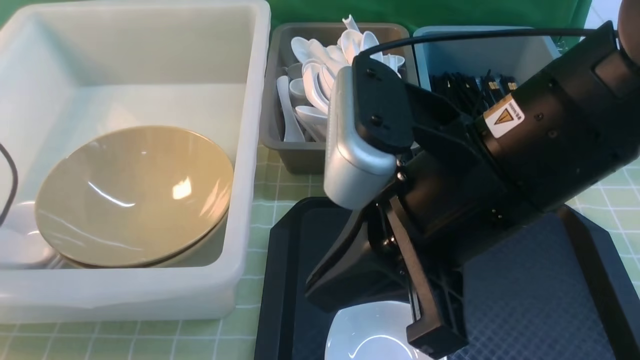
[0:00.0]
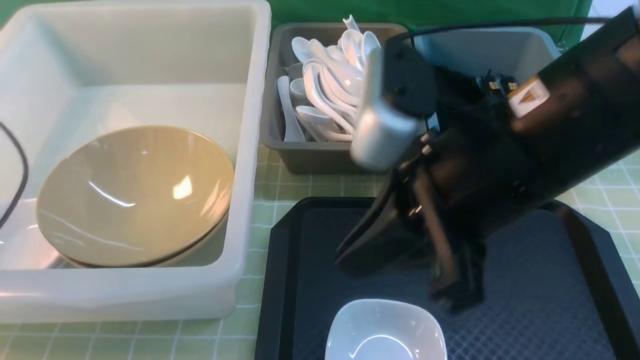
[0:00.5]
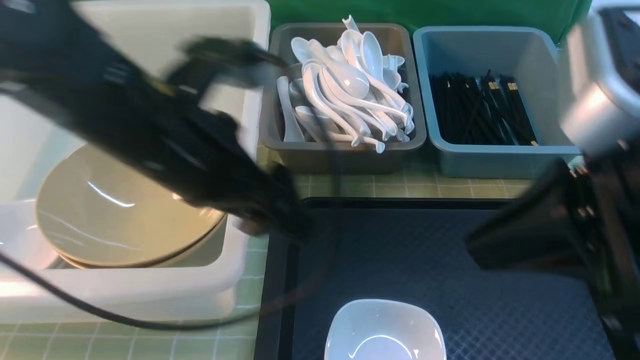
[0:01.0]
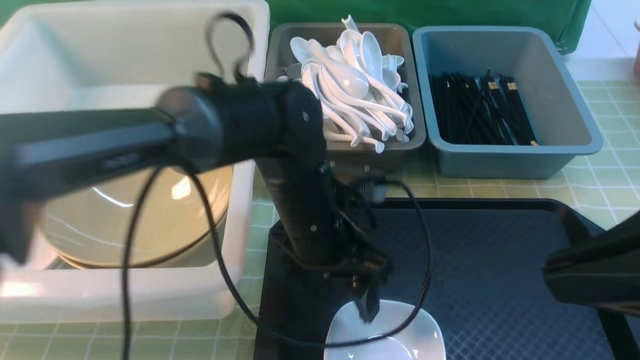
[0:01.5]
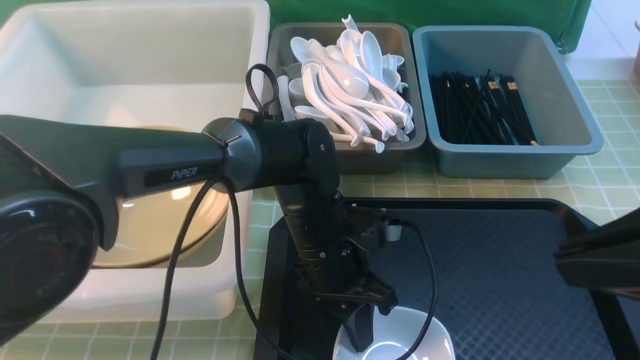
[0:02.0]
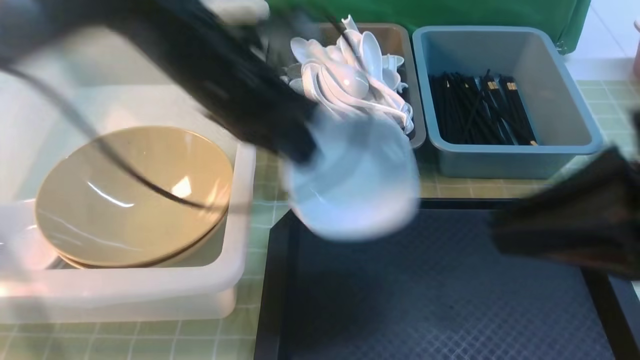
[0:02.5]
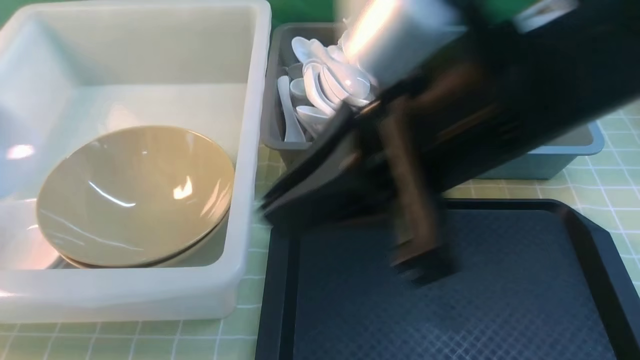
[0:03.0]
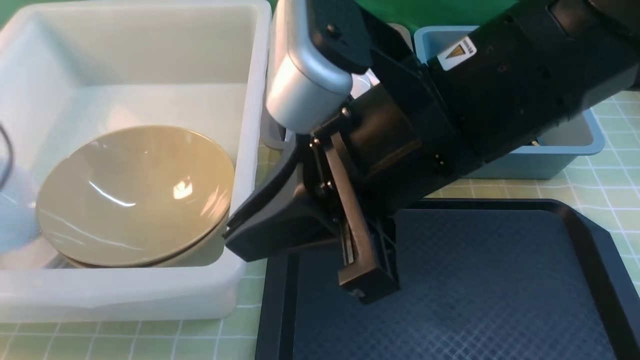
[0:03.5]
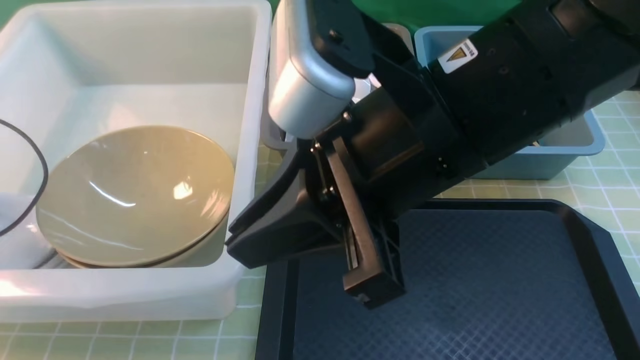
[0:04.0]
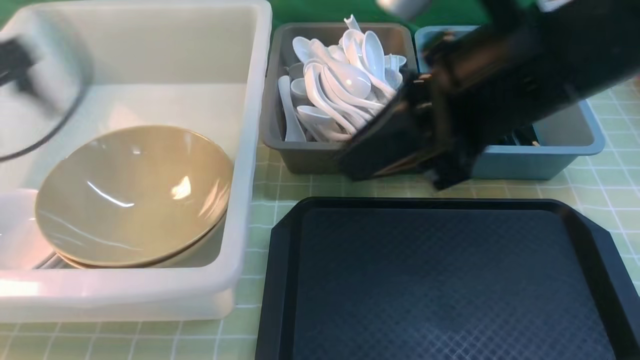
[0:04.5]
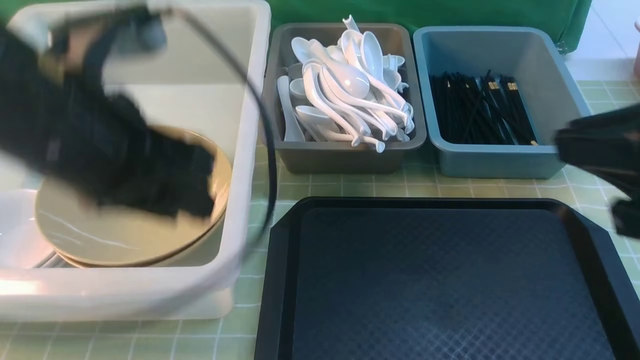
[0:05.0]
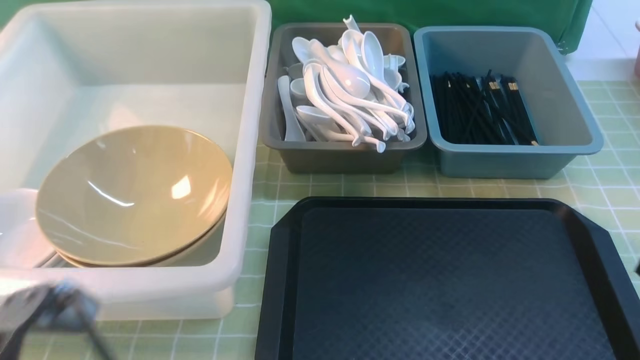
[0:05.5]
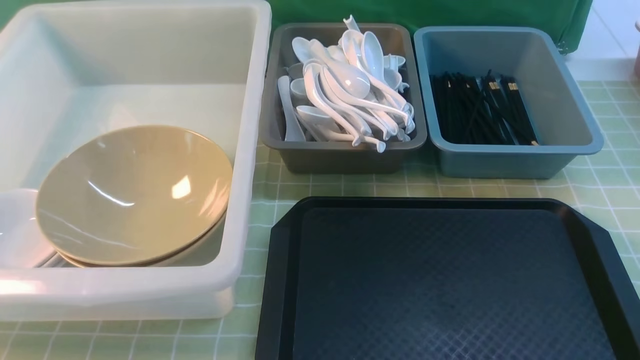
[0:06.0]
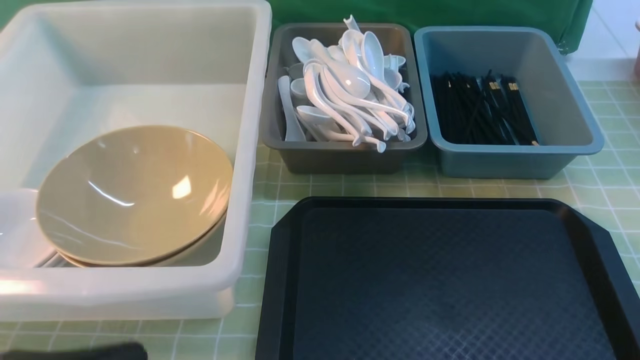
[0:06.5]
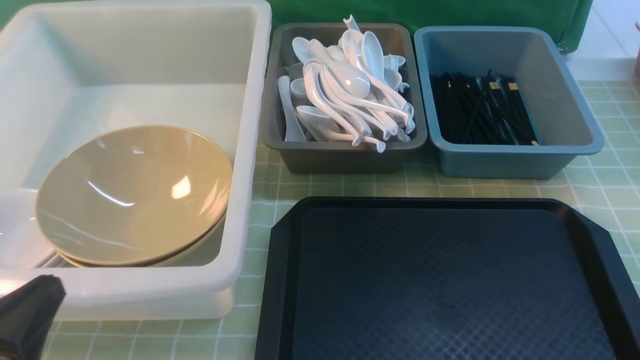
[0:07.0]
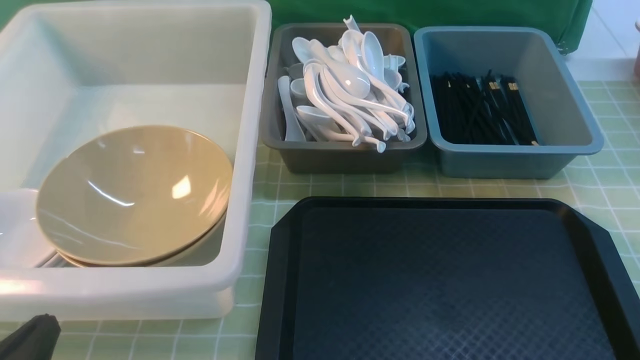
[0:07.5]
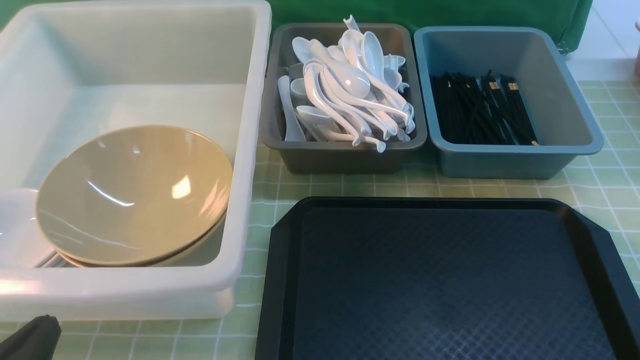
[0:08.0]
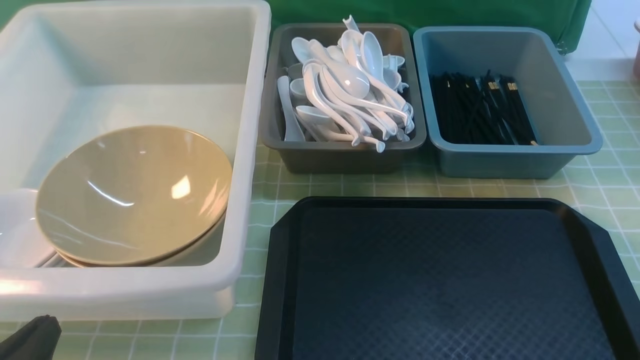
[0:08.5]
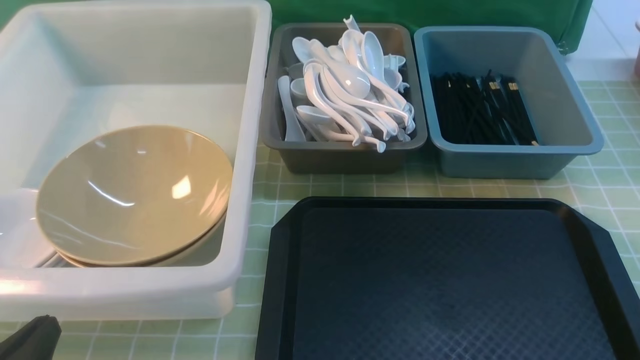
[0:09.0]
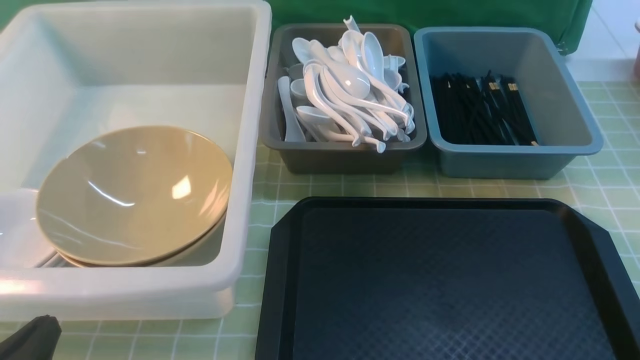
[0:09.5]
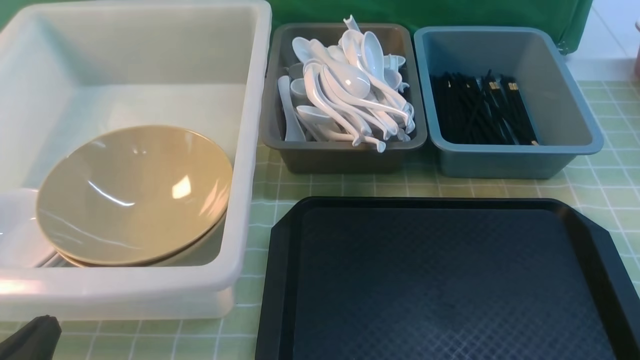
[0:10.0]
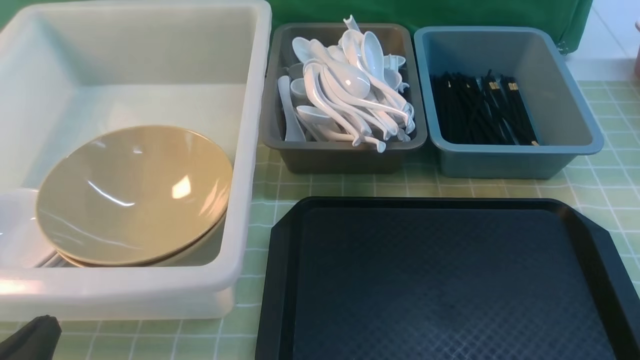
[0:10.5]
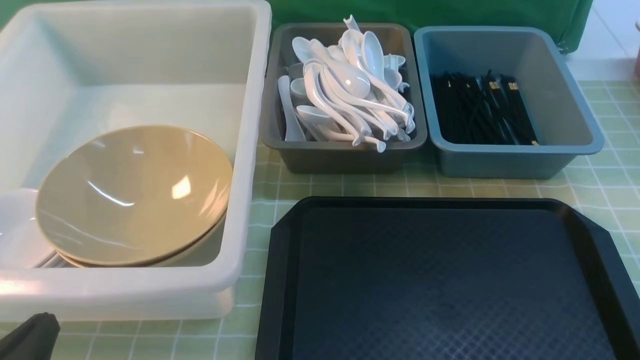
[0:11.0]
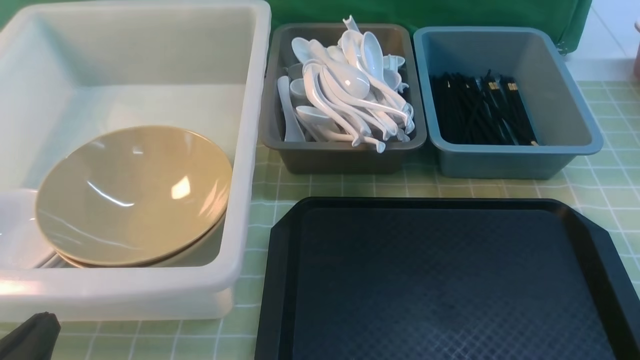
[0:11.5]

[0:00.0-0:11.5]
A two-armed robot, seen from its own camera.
Task of the whole recording: on green table put chopsticks spoon bowls plates into blue grey white boxes.
Step, 0:00.5 to 0:02.0: use the left arm to grab the plate.
Step, 0:02.5 to 0:04.5: use the left arm to put the plate into the large storage box on the left.
0:00.0 to 0:02.0: The left gripper moves to the right, about 40 cm, and opens and closes again; the right gripper shifts some 15 cm to the right and backward.
0:02.0 to 0:04.0: The left gripper heads to the left, covering about 40 cm, and opens up. The right gripper travels to the left and forward by some 20 cm.
0:04.0 to 0:06.0: The right gripper moves to the right, backward and downward, roughly 30 cm. Meanwhile the left gripper is displaced backward and to the right by approximately 35 cm, and closes up.
0:06.0 to 0:07.5: The left gripper goes roughly 15 cm downward and to the left.
0:09.5 to 0:11.5: Neither gripper changes place.

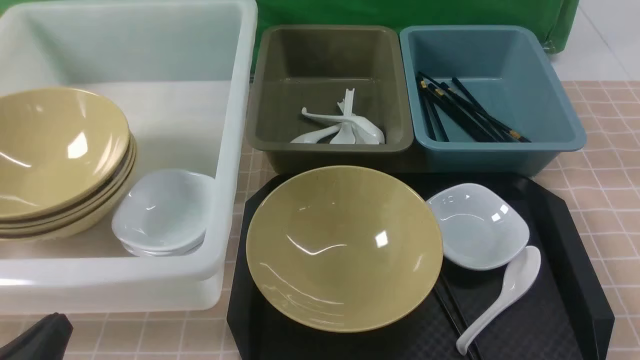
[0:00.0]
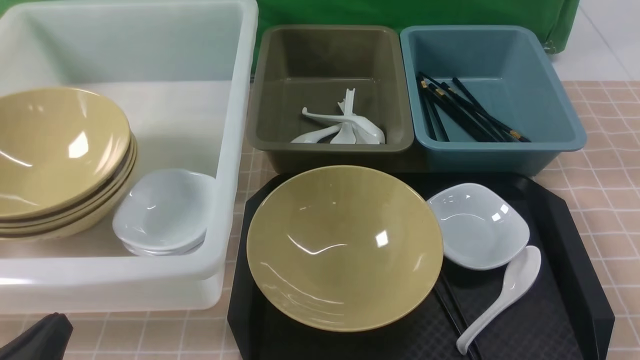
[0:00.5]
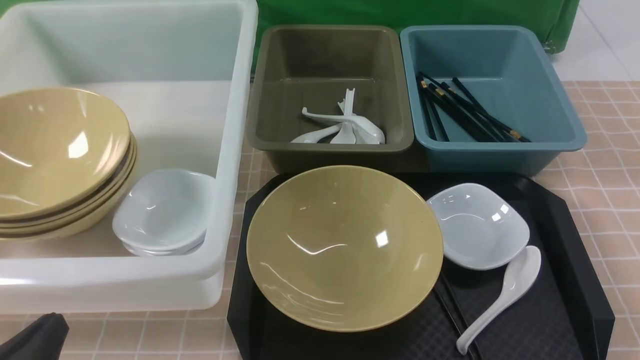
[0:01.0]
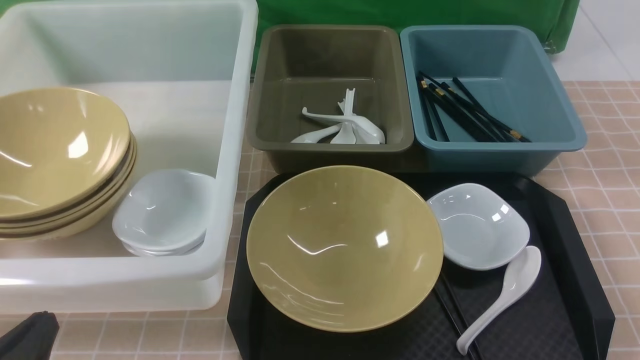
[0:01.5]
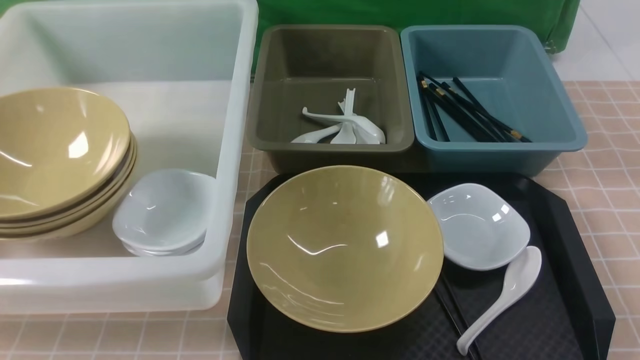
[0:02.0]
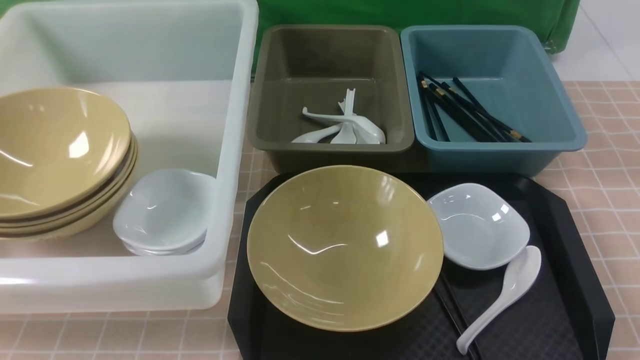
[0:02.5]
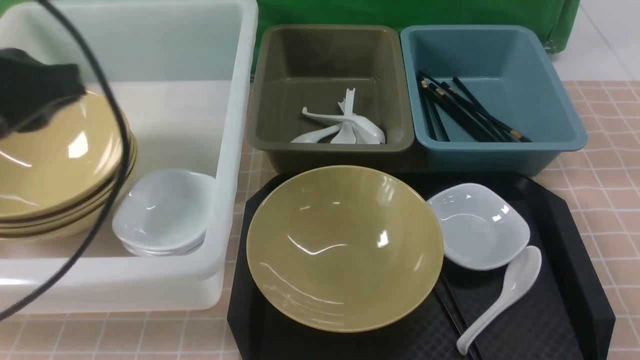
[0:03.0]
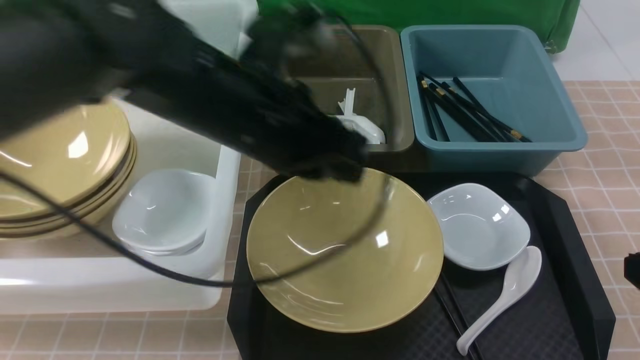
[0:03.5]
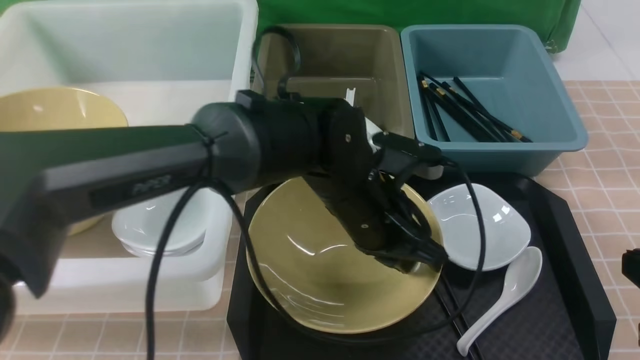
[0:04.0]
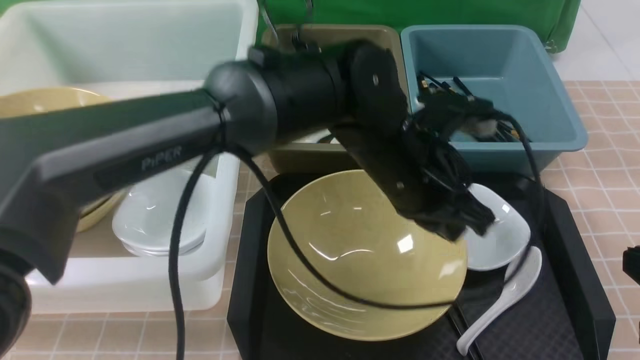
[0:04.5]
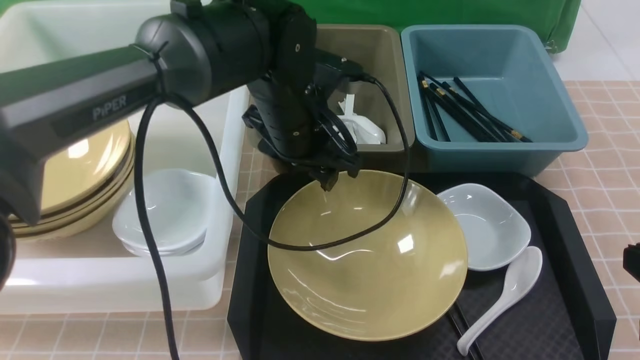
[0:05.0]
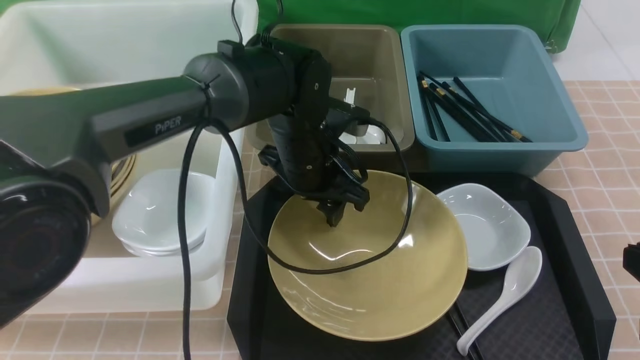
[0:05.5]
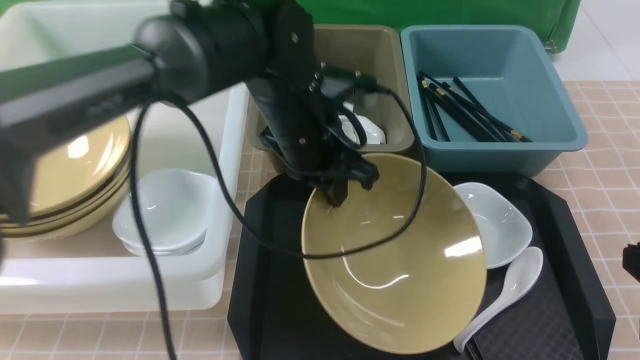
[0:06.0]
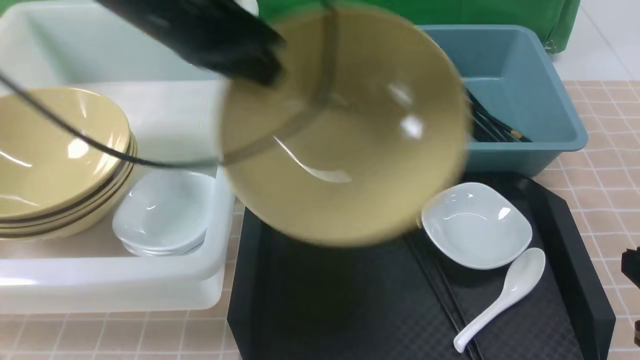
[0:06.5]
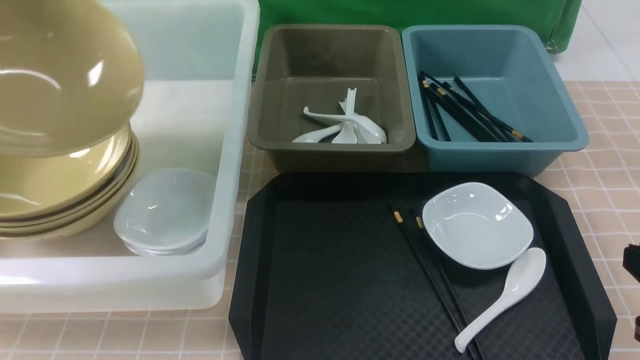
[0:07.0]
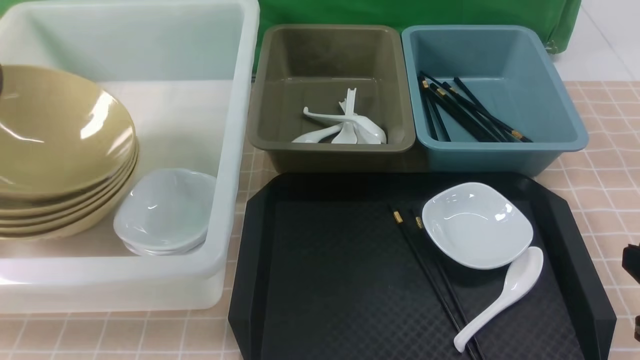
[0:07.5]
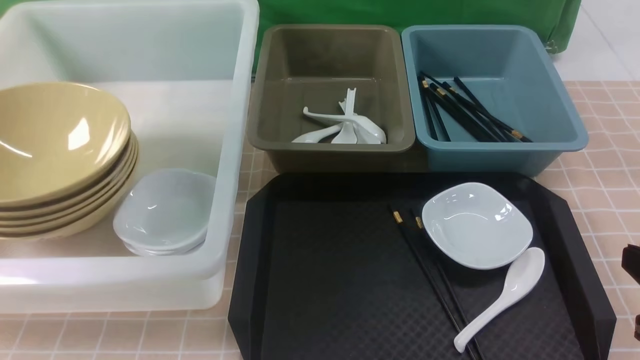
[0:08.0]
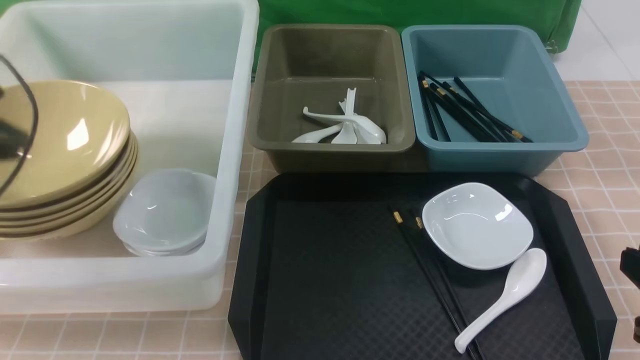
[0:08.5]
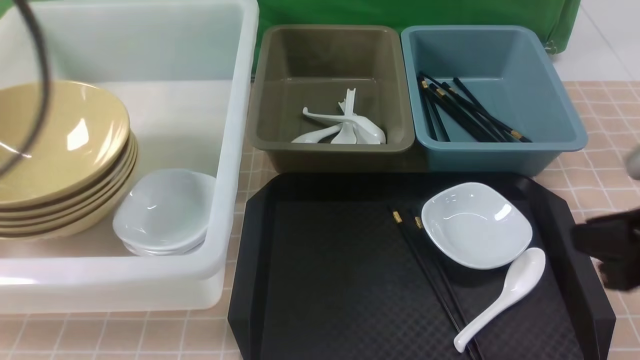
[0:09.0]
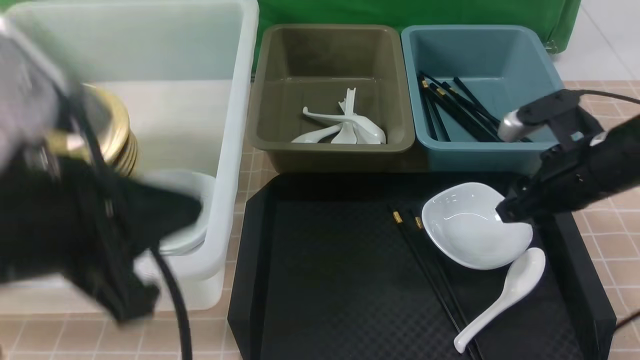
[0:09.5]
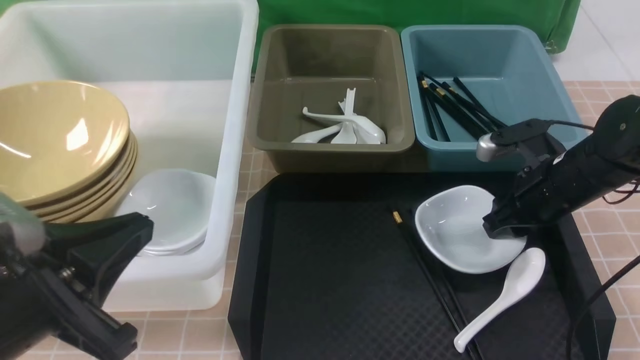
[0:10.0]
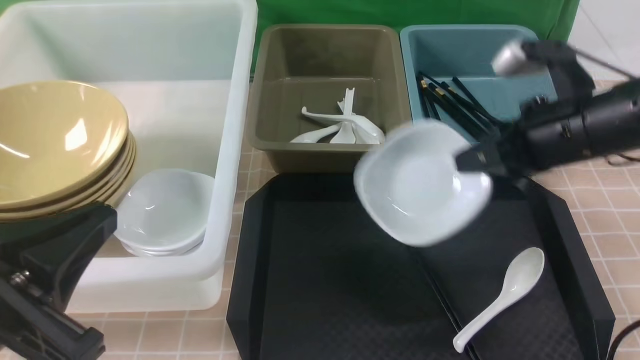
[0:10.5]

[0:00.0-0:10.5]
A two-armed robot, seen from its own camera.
Task of the whole recording: on brown table put chopsticks spoon bowls plates into blue grey white boxes.
Step, 0:00.0 to 0:05.5: use the left arm to grab the yellow noodle bowl on the left.
Step, 0:06.0 to 0:08.0: use the left arm to put the noodle bowl into the large storage box on the left.
Step, 0:08.5 to 0:10.0: use the right arm to grab the plate.
0:02.0 to 0:04.0: The right gripper is displaced forward by roughly 5 cm, while the left gripper goes roughly 35 cm to the right and forward.
0:04.0 to 0:06.5: The left gripper moves to the left and upward, about 20 cm, and opens and closes again.
0:06.5 to 0:08.5: The left gripper travels to the left by about 25 cm, and opens up.
0:08.5 to 0:10.5: The right gripper moves forward, roughly 20 cm, and opens and closes again; the left gripper is displaced backward and to the right by about 25 cm, and closes its fingers.
